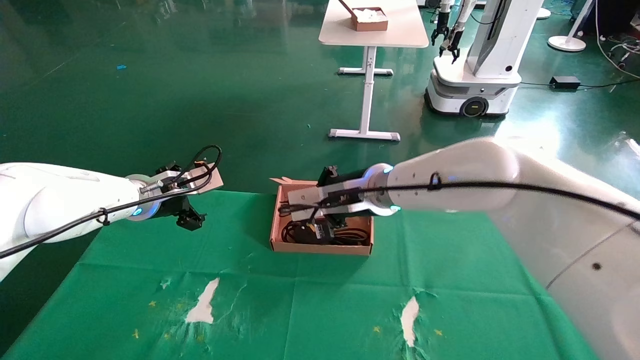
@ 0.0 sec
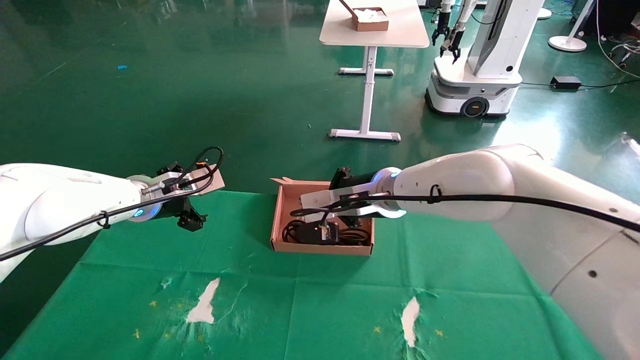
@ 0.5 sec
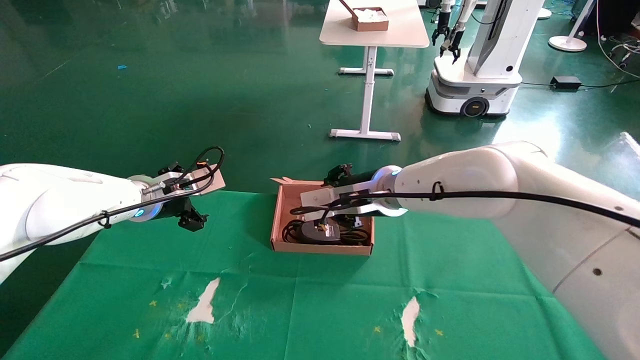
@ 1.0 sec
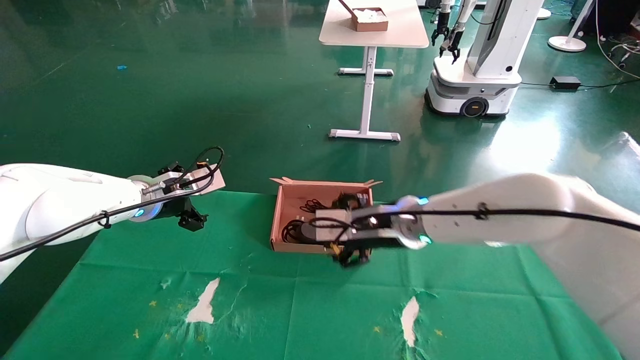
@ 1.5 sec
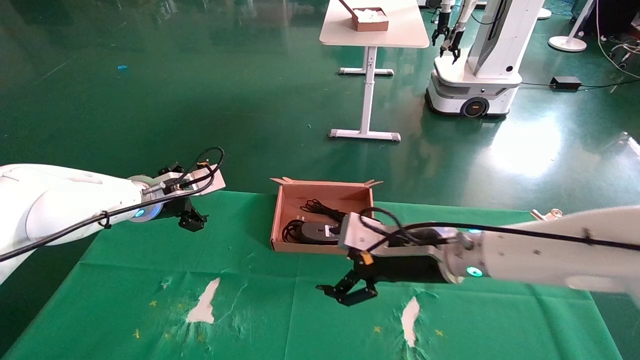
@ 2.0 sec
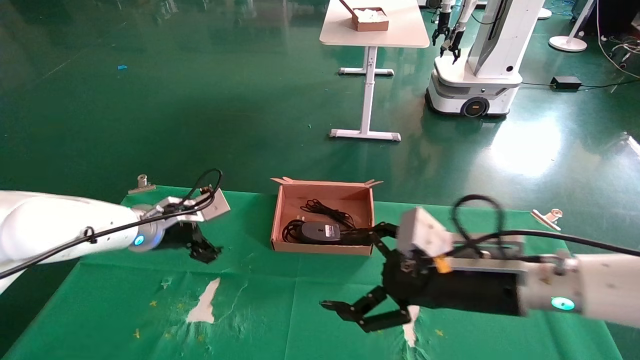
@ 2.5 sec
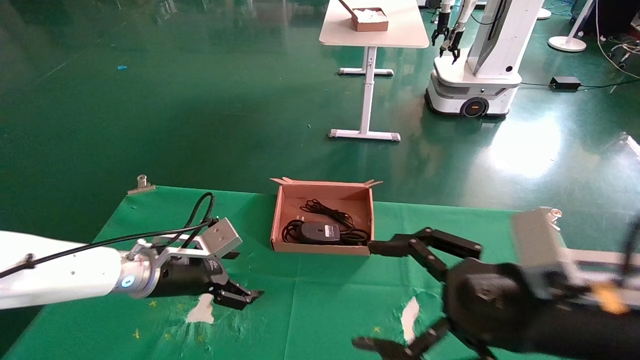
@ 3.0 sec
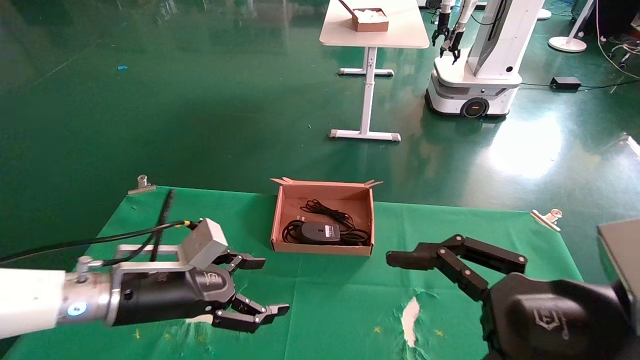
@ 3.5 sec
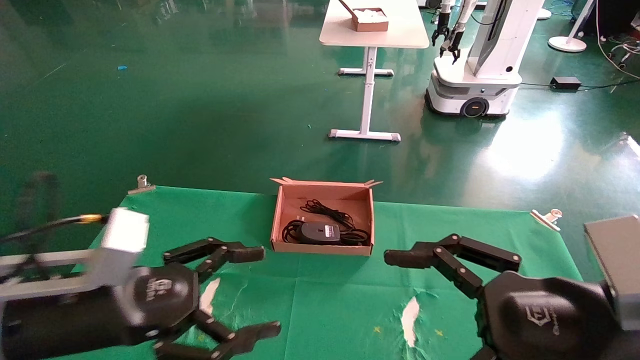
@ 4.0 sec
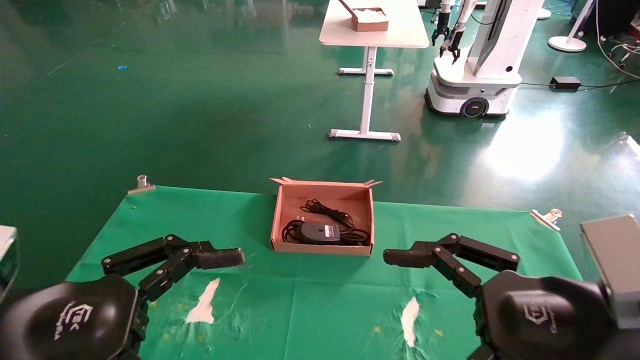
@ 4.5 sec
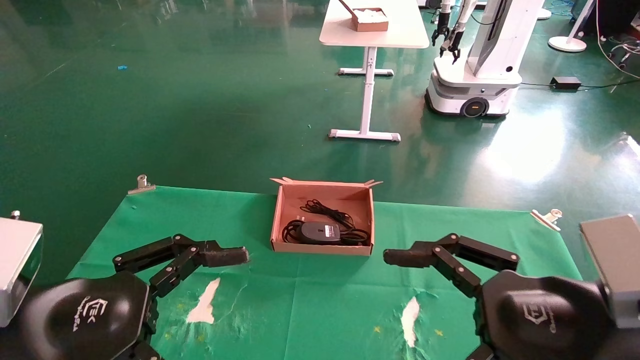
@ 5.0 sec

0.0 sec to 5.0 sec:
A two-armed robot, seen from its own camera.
Step, 0.0 sec to 2.0 sec: Place the mouse and power cord into the box.
0.0 sec to 2.5 sec: The right gripper shifts approximately 20 cm backward, to the right and downward, and opens its fingers, while the left gripper travels downward by approximately 5 cm.
2.5 sec to 5.0 sec: The left gripper travels backward by some 30 cm. Meanwhile the right gripper moves backward and to the right, roughly 15 cm.
